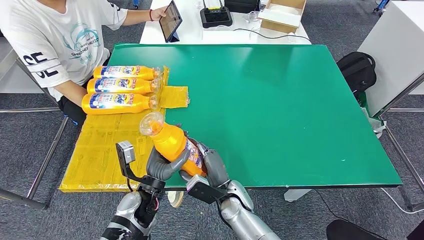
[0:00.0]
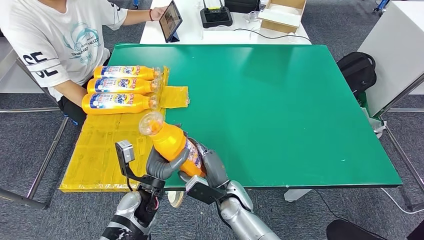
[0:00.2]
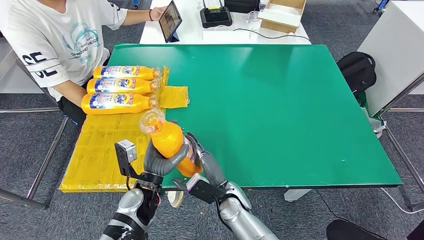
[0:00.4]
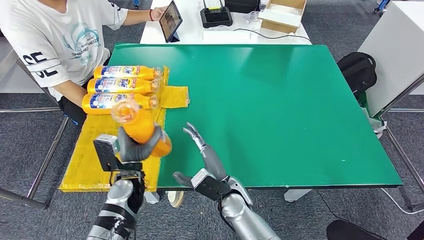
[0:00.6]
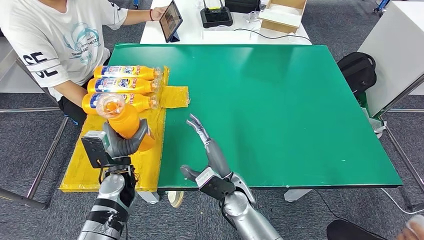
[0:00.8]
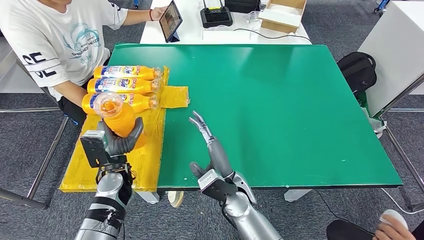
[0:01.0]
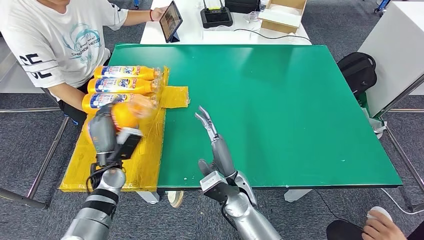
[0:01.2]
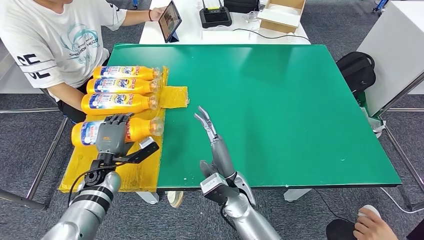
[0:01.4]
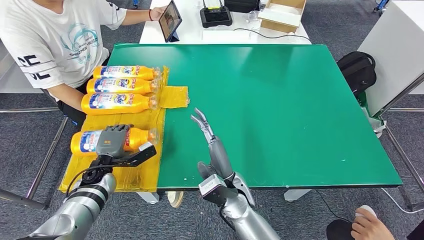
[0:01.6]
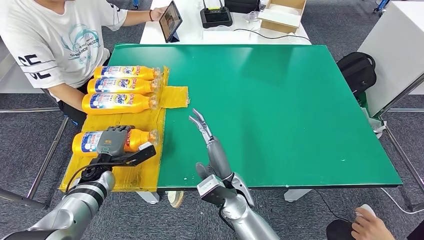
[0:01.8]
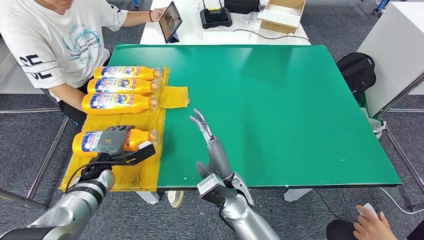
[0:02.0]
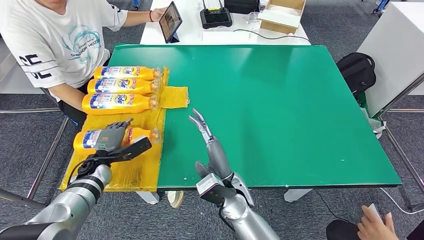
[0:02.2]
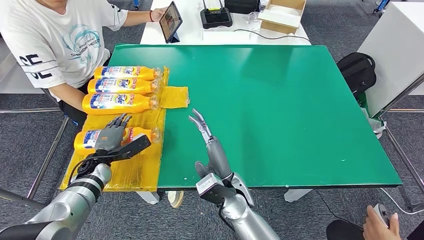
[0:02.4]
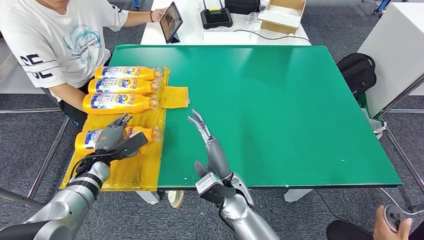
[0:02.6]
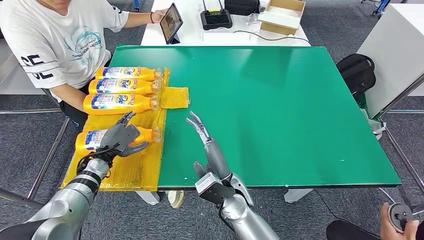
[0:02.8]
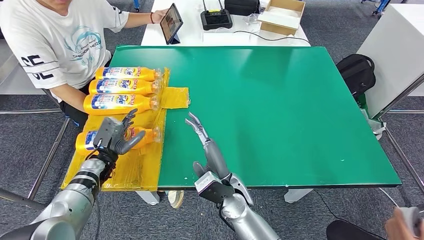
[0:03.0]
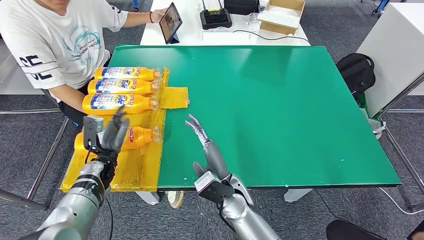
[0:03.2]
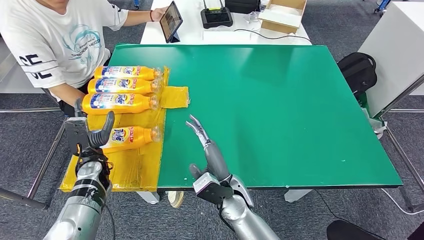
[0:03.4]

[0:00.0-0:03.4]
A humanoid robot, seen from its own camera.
Step, 0:00.0 to 0:03.4: Flip the fast-moving consumer goods bottle to the front side.
0:00.0 to 0:01.6: The right hand heads upward, covering about 5 cm. The left hand moves to the left and forward, approximately 20 cm.

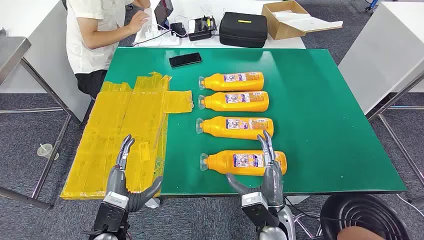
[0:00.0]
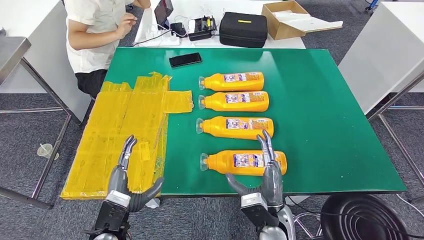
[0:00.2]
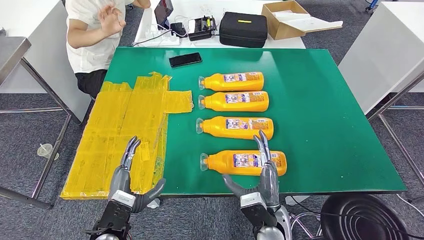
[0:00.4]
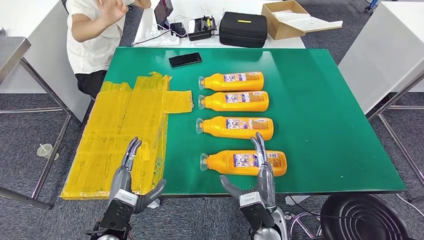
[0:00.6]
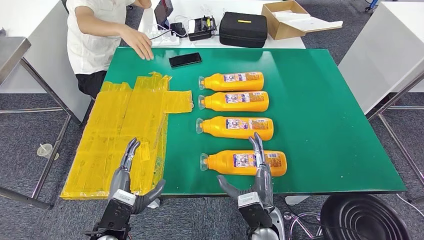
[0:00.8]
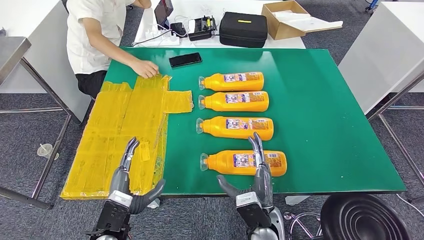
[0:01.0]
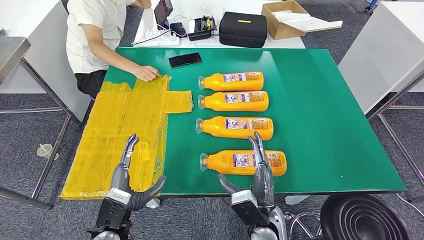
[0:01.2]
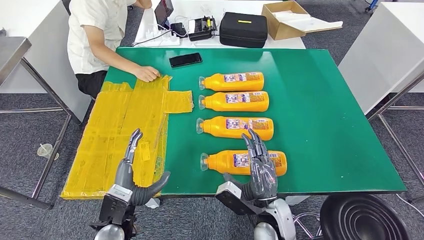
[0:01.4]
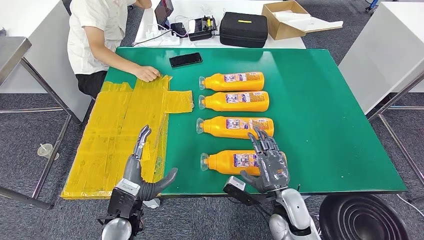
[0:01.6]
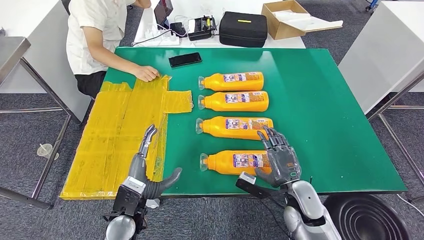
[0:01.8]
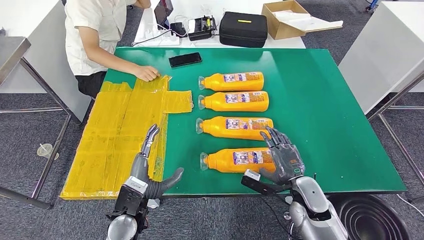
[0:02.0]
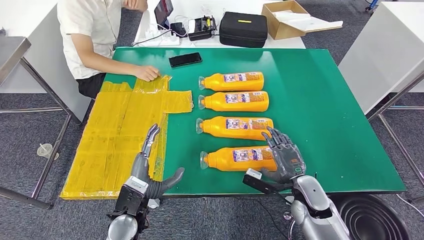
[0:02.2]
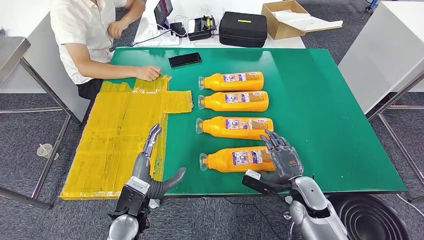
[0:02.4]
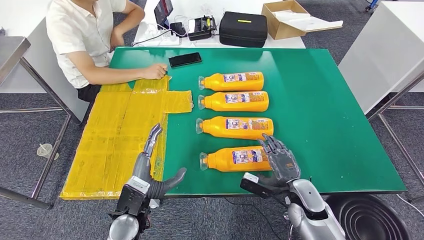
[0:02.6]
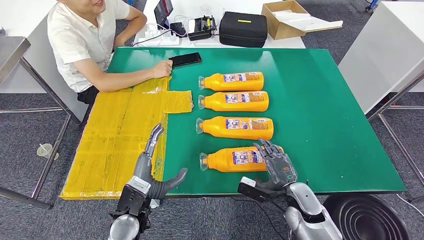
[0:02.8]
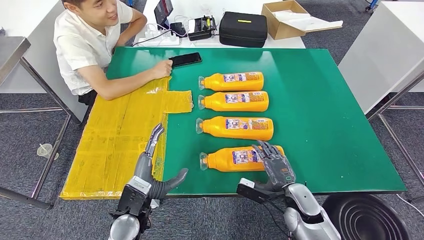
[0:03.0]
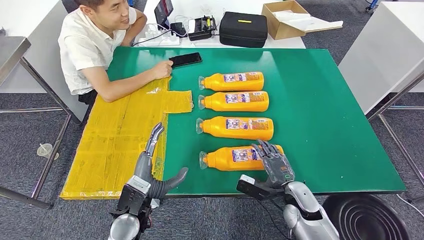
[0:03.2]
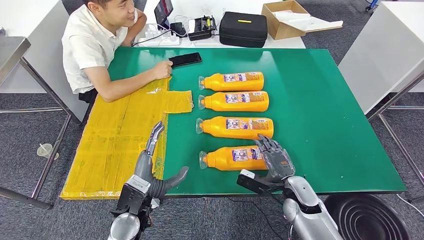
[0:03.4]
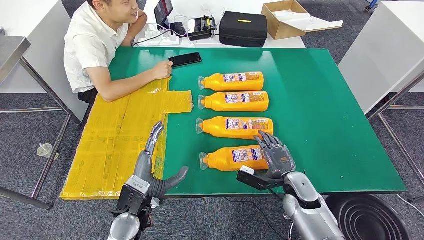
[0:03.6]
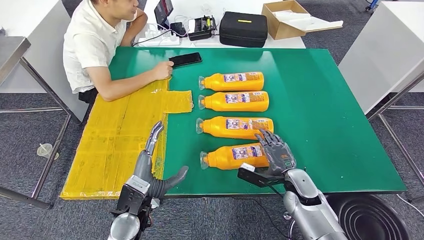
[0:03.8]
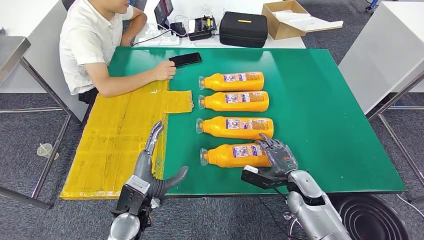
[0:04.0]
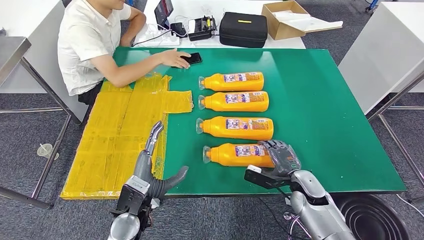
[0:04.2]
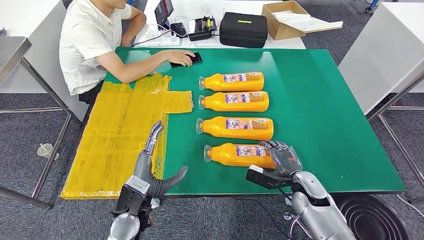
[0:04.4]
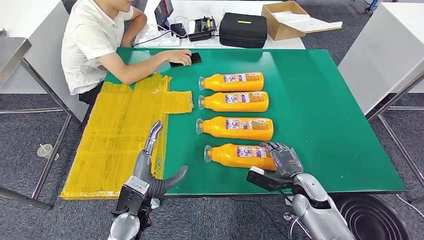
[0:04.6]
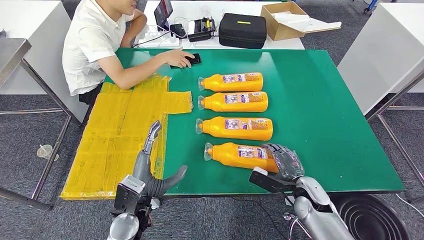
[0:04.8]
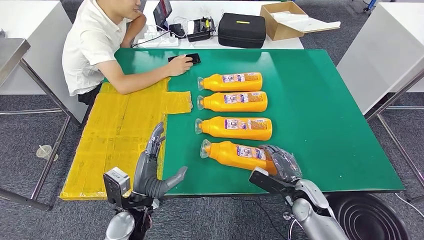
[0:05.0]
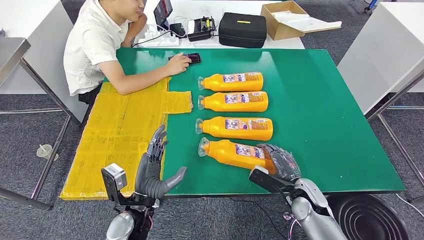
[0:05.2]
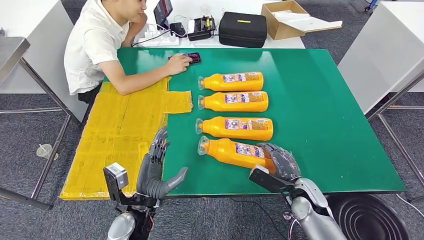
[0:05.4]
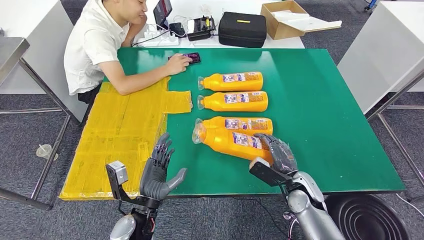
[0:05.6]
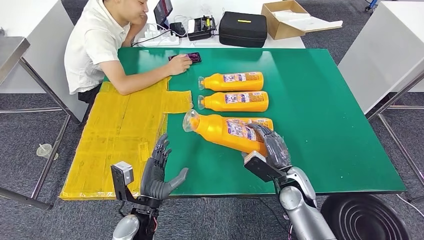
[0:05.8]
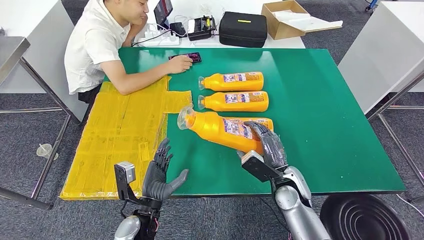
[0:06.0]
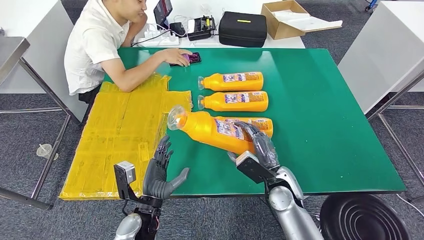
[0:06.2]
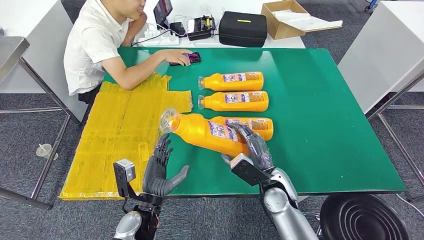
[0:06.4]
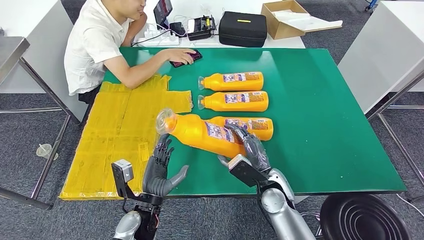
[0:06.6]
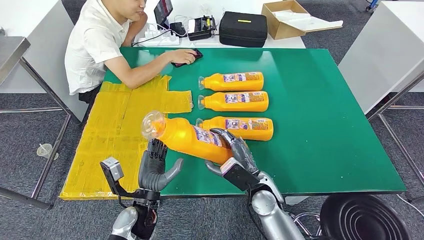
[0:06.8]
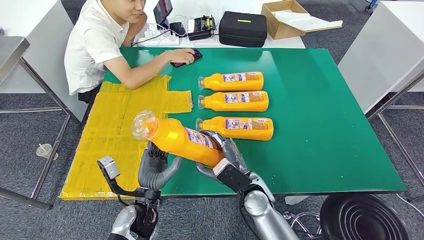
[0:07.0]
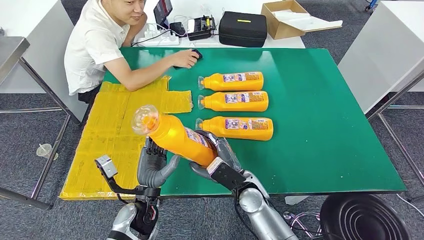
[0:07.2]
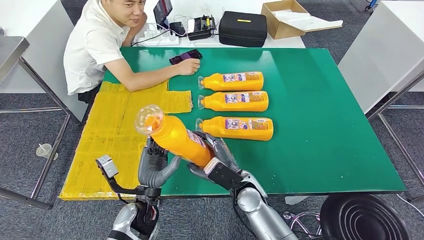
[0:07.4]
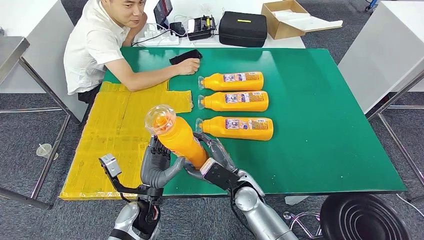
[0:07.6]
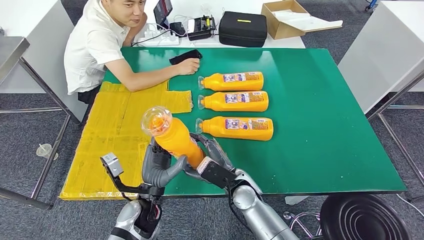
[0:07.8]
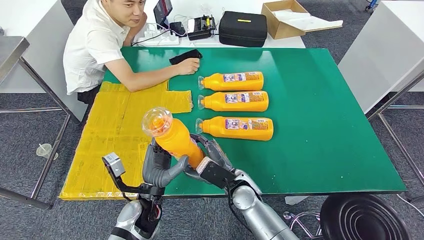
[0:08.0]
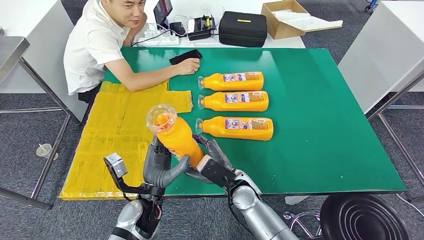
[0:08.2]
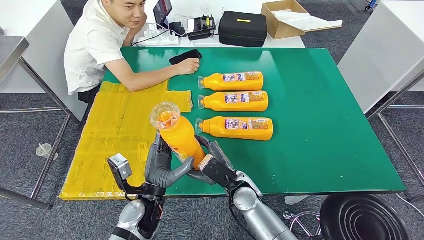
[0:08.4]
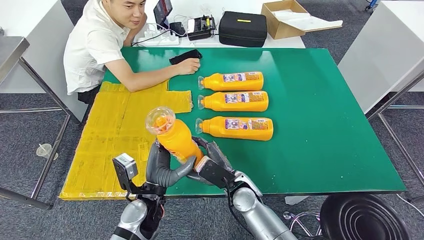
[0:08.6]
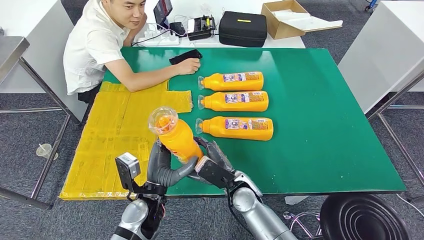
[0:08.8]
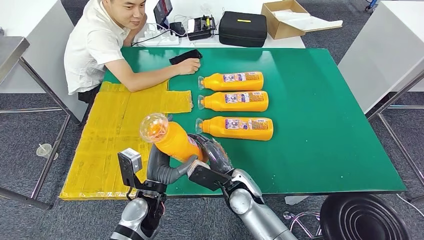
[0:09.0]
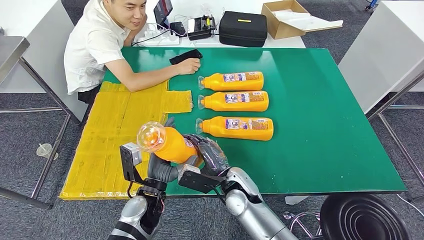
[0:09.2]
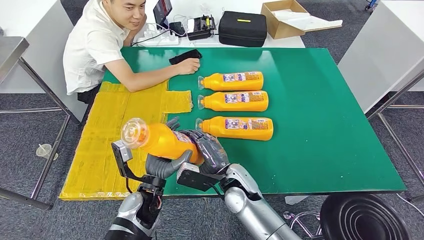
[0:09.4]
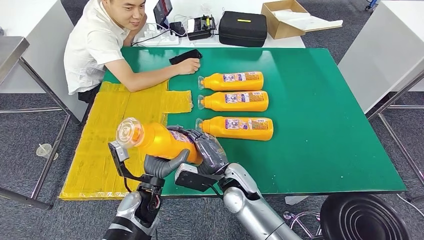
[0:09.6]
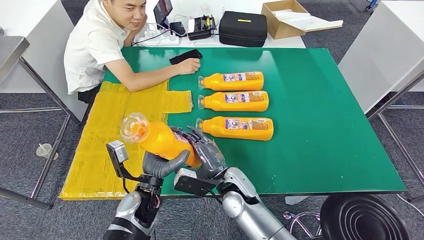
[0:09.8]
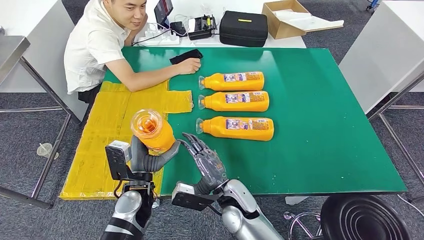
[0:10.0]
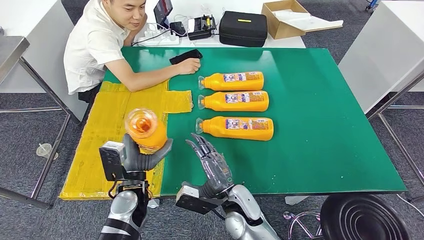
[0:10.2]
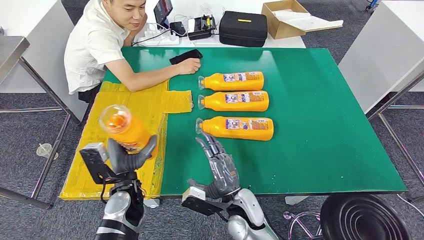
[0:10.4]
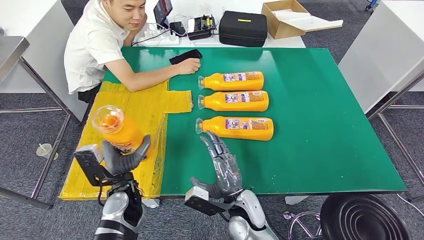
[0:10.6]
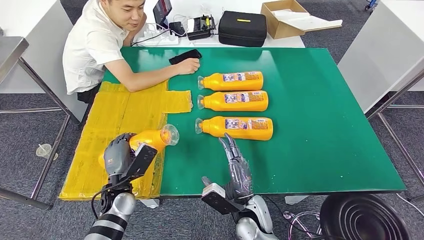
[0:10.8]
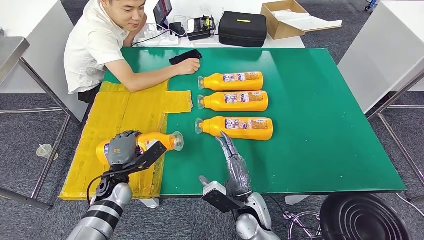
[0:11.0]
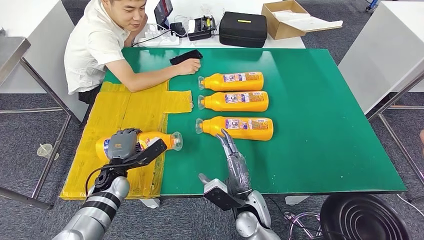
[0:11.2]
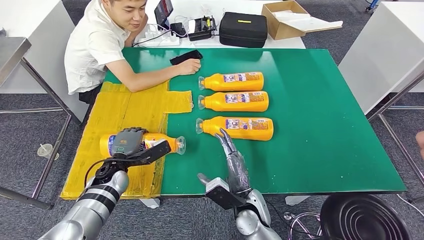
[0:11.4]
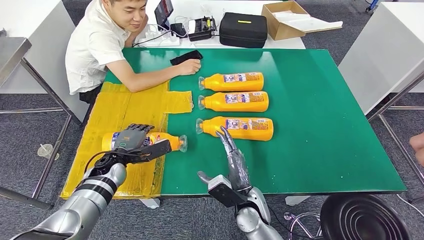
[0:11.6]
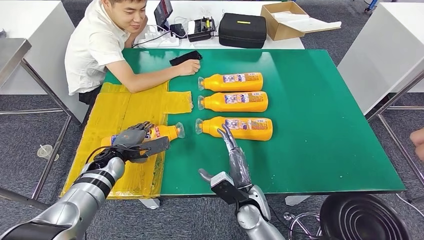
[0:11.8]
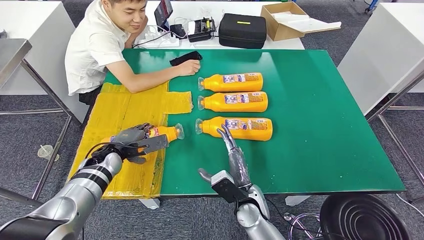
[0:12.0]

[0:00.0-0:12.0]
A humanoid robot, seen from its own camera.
Step, 0:00.0 to 0:07.6: Take the fast-moving consumer goods bottle from the table.
0:01.6 to 0:03.0: The right hand moves to the right, some 5 cm.
0:03.0 to 0:04.4: The right hand moves roughly 5 cm.
0:04.4 to 0:06.0: The right hand goes roughly 10 cm to the left and upward.
0:06.0 to 0:07.6: The right hand shifts some 10 cm to the left.
0:09.0 to 0:10.4: The right hand is displaced backward by some 5 cm; the left hand shifts some 5 cm to the left.

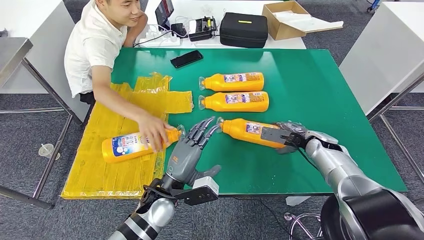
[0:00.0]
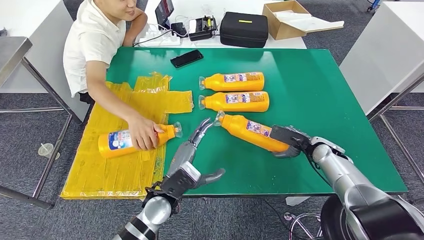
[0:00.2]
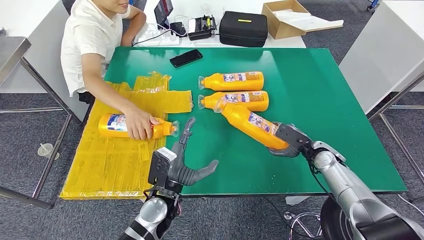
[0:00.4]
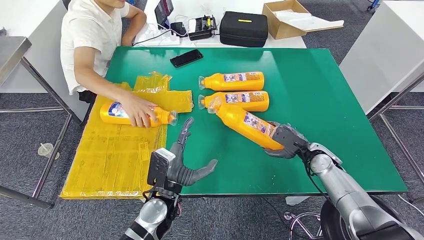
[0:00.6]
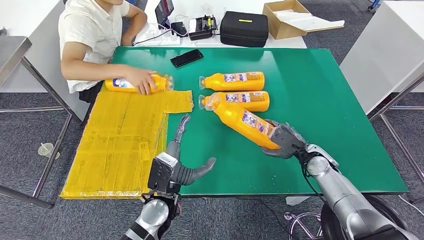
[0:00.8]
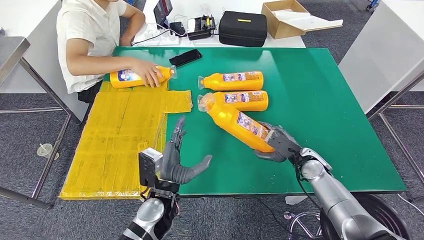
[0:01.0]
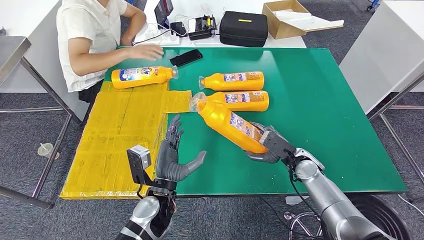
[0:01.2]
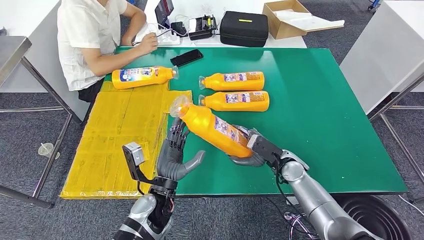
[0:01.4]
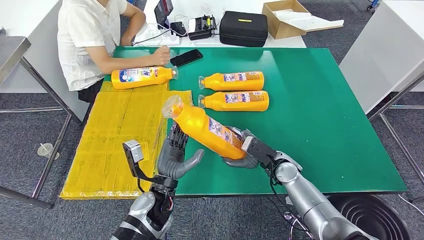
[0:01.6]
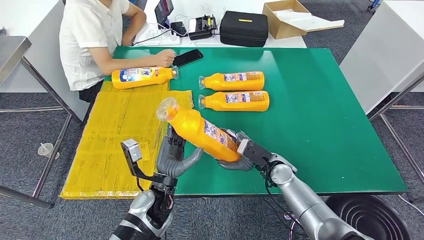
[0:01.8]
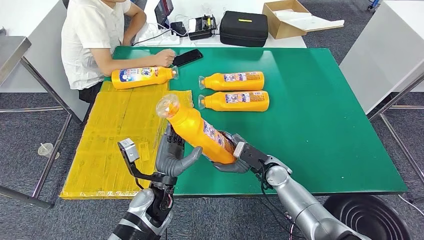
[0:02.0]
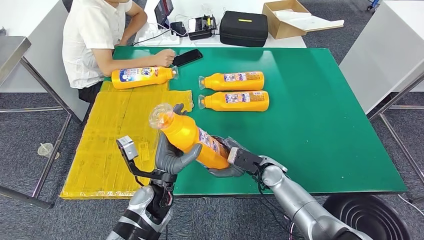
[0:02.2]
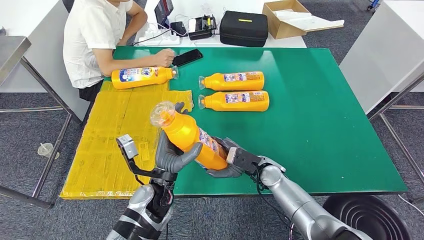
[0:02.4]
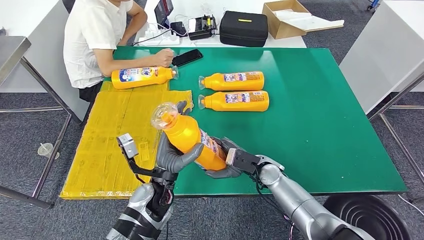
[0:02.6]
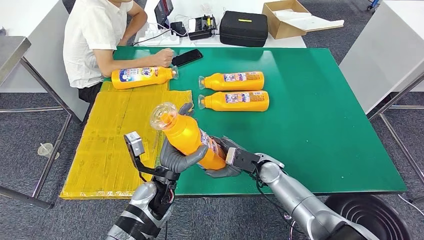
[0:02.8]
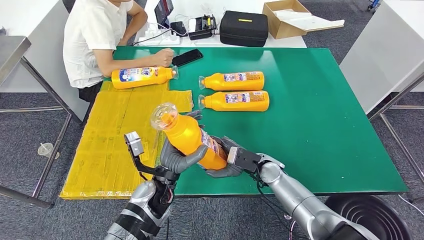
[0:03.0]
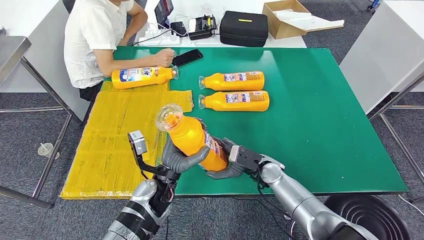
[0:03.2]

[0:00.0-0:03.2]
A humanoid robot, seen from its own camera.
0:01.6 to 0:03.2: The hands move only a little.
